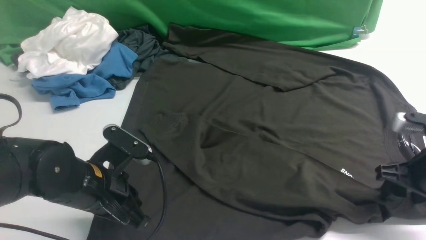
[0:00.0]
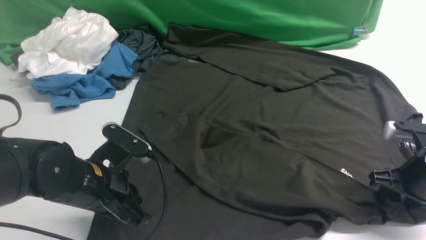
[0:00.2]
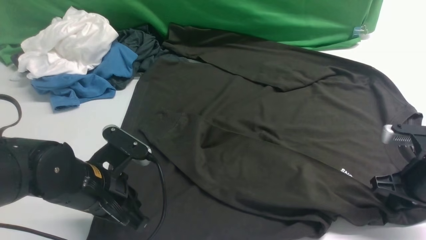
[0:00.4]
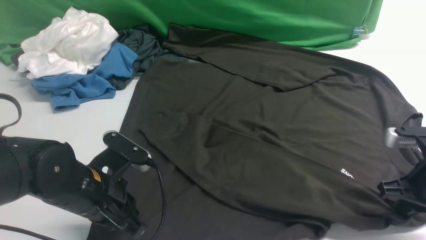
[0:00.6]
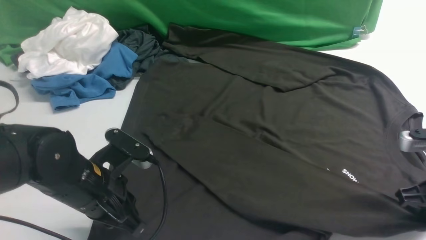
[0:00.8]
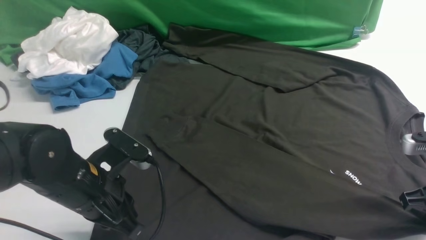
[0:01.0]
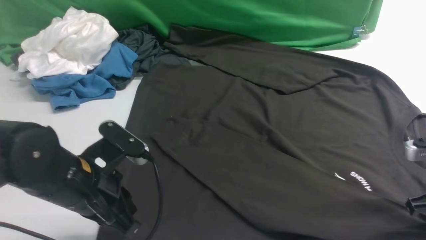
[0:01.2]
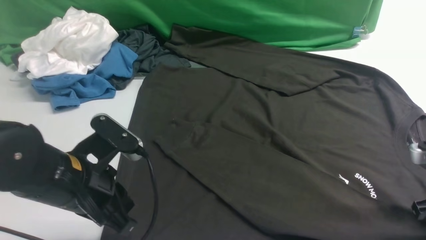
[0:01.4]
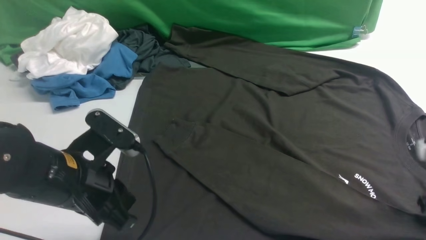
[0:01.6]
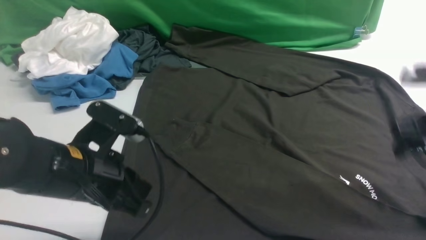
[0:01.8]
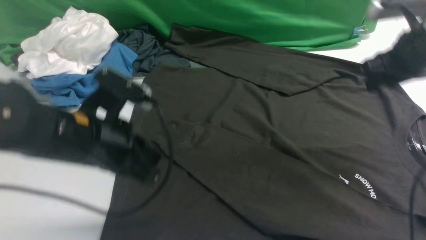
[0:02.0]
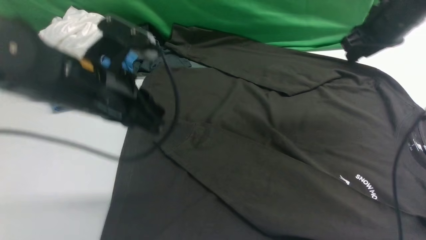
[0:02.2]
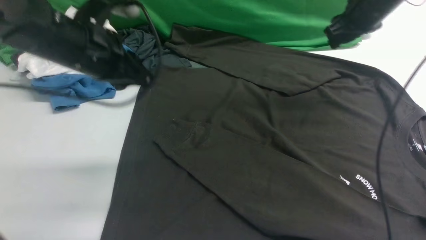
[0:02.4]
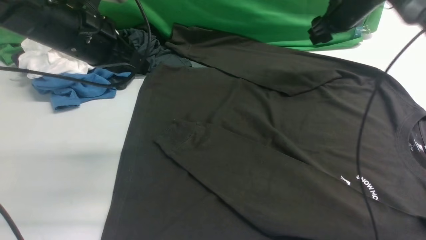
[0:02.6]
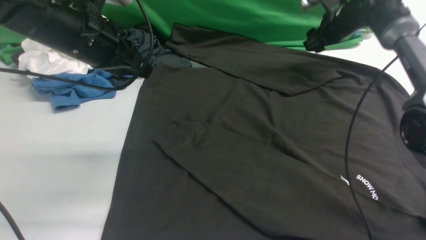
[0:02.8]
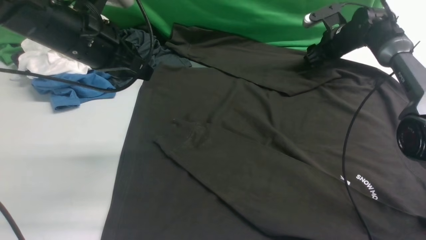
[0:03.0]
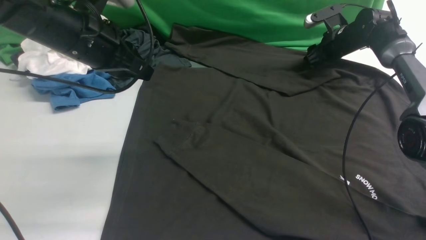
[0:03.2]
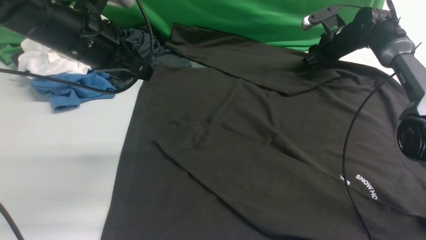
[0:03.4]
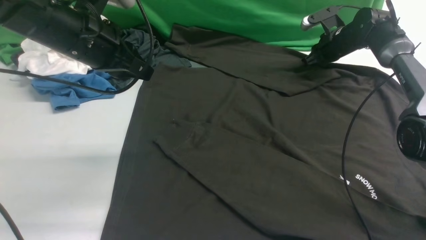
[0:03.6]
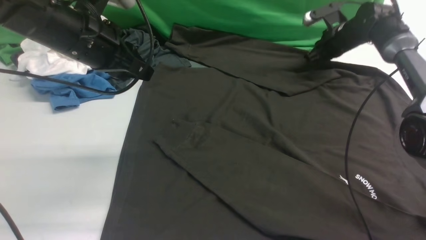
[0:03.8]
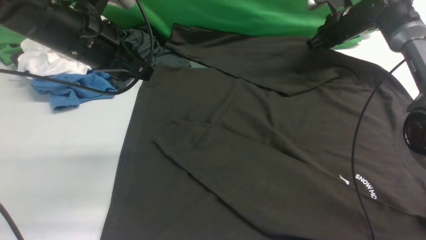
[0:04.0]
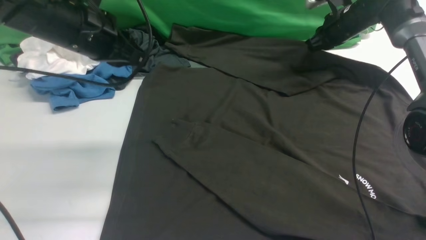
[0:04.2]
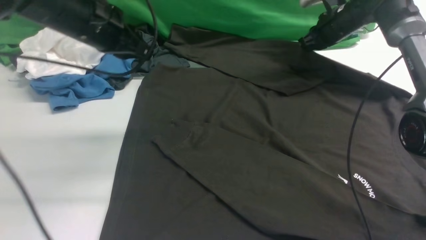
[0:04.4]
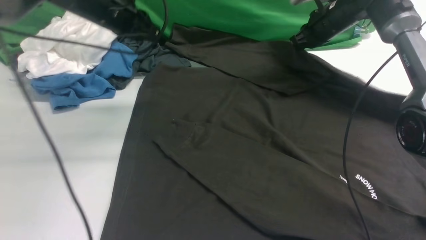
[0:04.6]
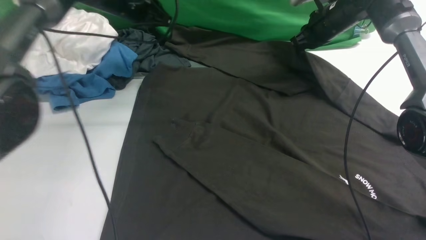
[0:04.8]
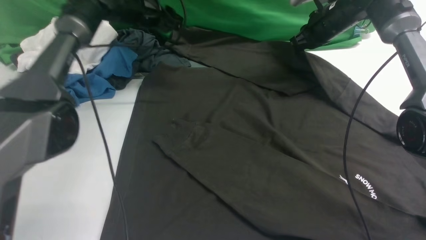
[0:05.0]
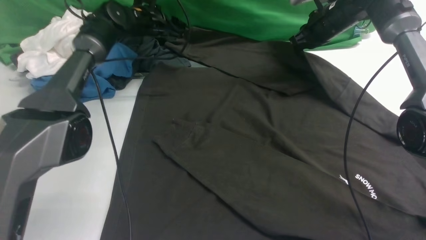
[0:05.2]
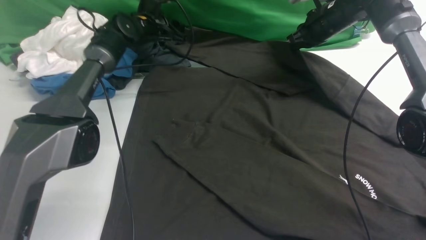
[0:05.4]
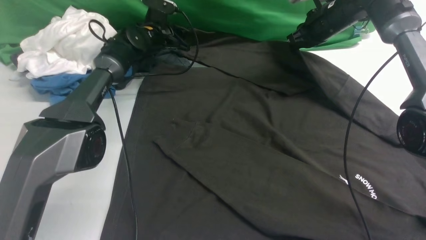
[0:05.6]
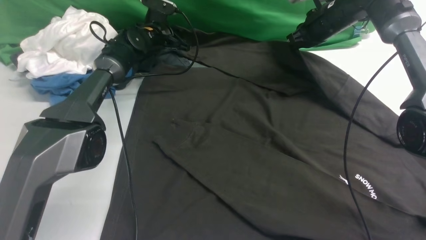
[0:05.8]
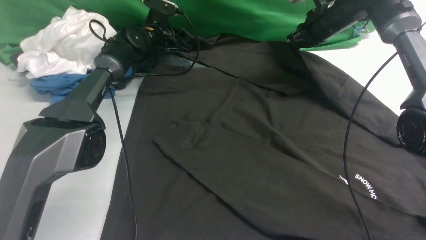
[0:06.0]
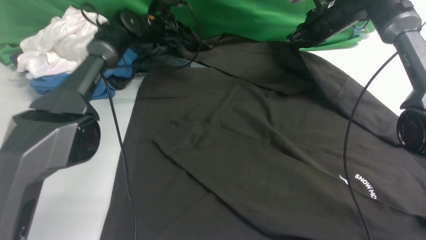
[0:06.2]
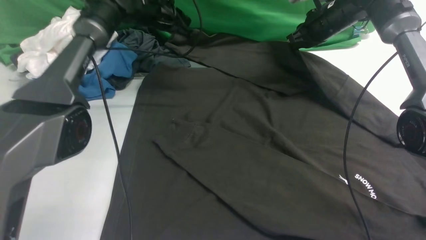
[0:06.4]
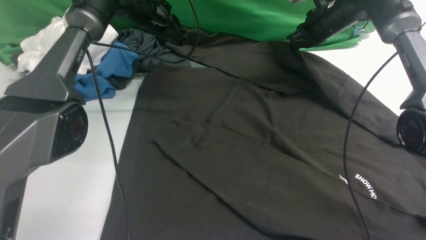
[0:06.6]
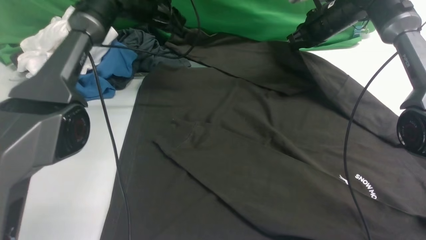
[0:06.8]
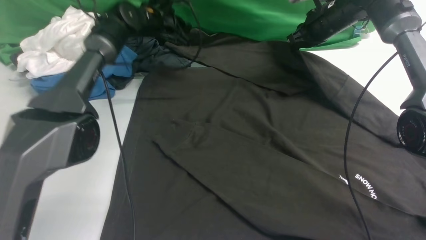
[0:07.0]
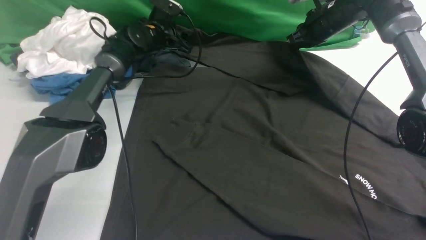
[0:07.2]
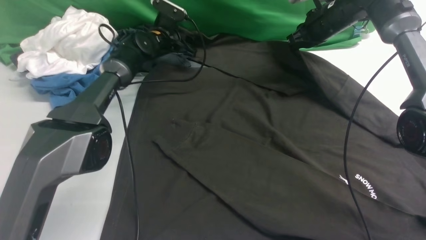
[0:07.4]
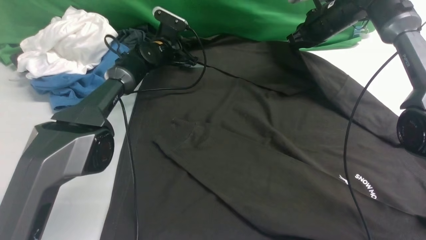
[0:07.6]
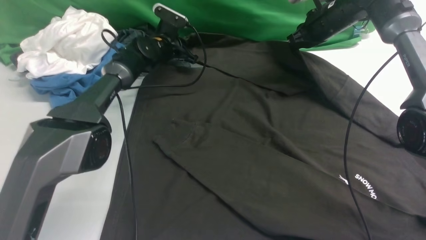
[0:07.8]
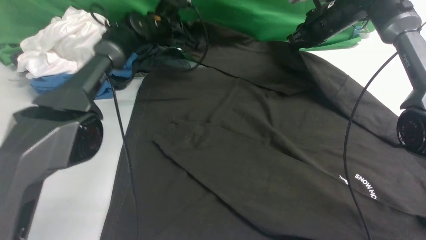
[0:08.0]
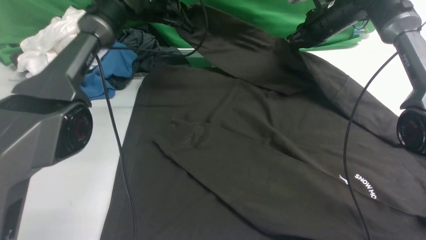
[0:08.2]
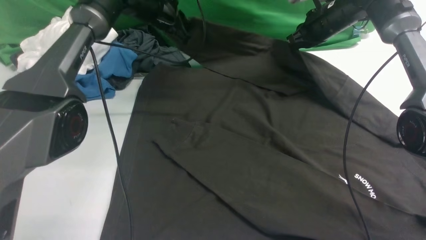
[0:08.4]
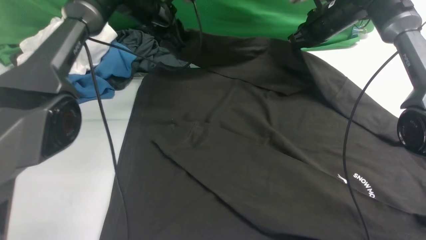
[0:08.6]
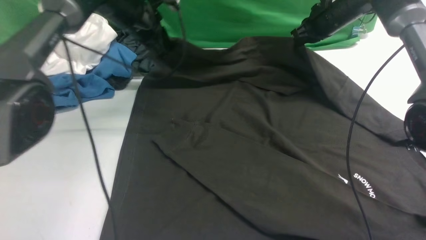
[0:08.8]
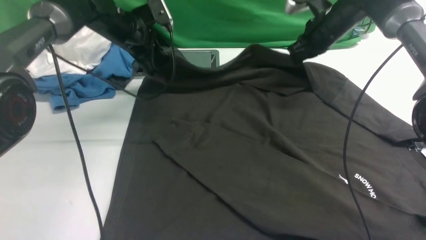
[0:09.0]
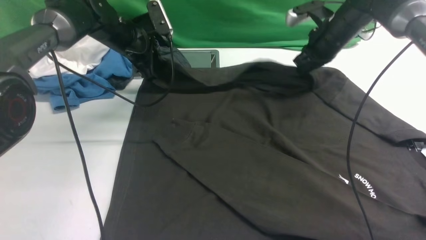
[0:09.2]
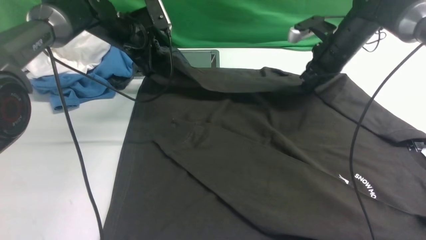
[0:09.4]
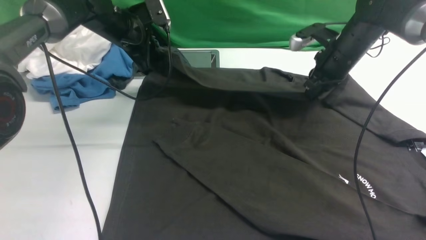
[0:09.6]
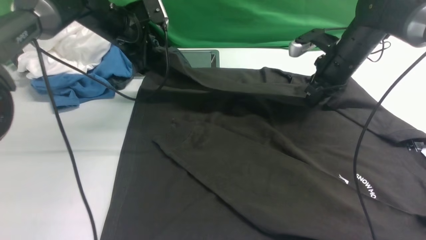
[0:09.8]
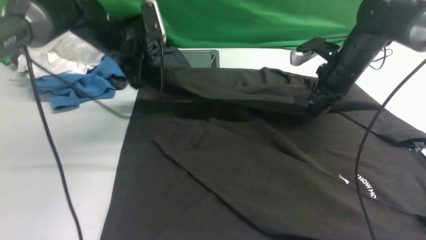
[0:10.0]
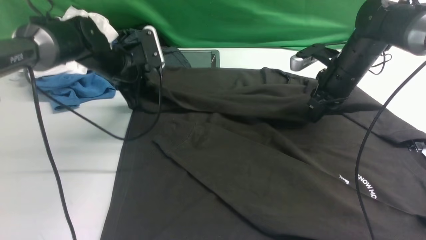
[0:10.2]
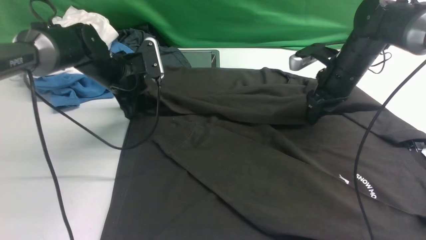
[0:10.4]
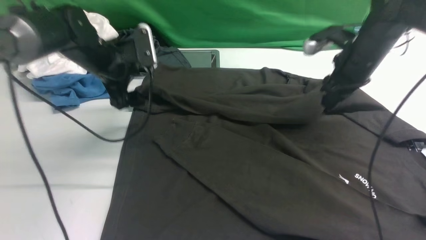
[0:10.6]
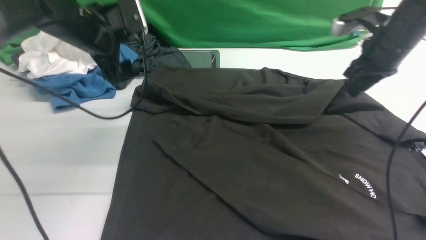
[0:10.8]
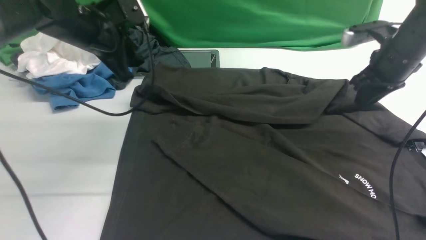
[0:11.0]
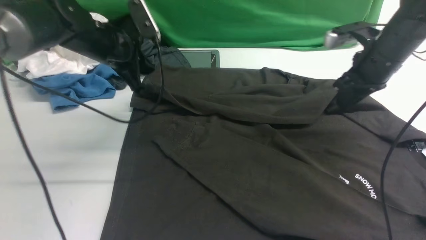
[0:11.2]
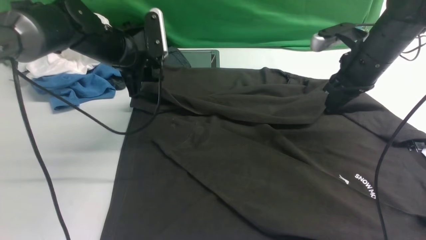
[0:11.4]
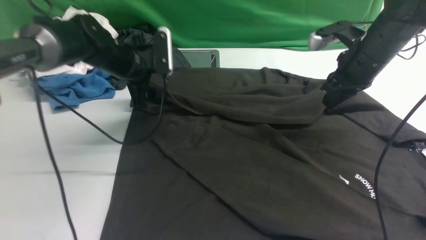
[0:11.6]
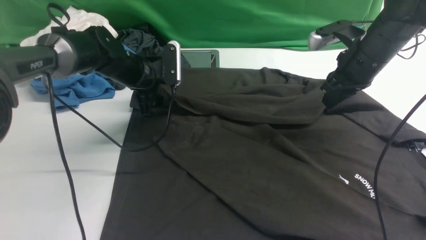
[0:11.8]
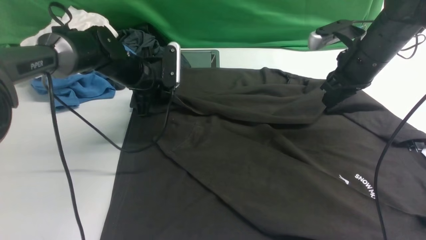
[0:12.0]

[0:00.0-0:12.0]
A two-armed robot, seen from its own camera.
Step, 0:00.0 to 0:07.8: use the left arm to clamp the cuff farthest from it.
0:00.0 to 0:01.6: The left gripper goes about 5 cm upward, while the right gripper closes and opens again.
0:01.6 to 0:03.0: The left gripper is displaced forward and upward by roughly 20 cm. Meanwhile the right gripper travels forward by approximately 35 cm.
0:03.0 to 0:04.4: The left gripper moves forward, some 5 cm; the right gripper goes approximately 5 cm upward, and closes up.
0:04.4 to 0:06.0: The left gripper goes approximately 25 cm forward and downward, and opens, then closes again.
0:06.0 to 0:07.6: The left gripper travels upward and back again, about 5 cm each way, and opens.
0:07.6 to 0:09.0: The left gripper shifts about 15 cm upward and backward, and closes up.
0:09.0 to 0:10.4: The two grippers go about 10 cm backward. The left gripper opens; the right gripper opens.
0:10.4 to 0:12.0: The left gripper moves some 5 cm upward and comes back, and closes its fingers.

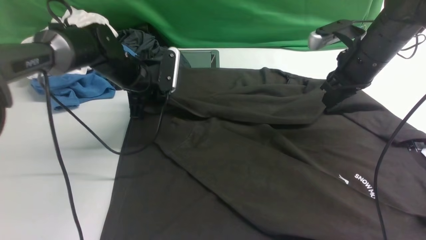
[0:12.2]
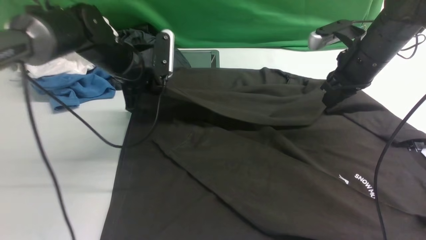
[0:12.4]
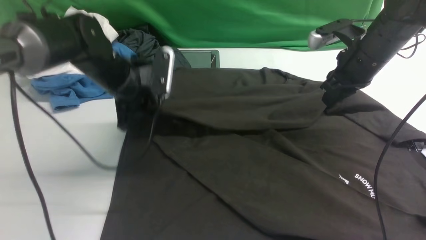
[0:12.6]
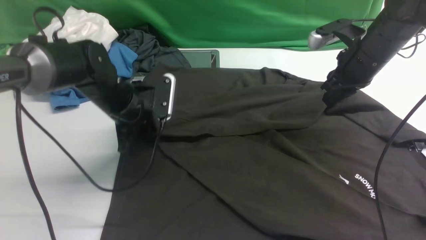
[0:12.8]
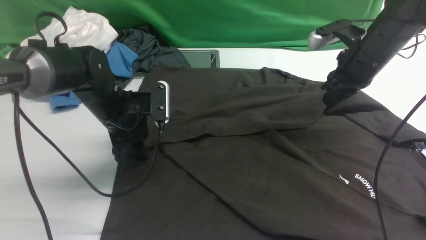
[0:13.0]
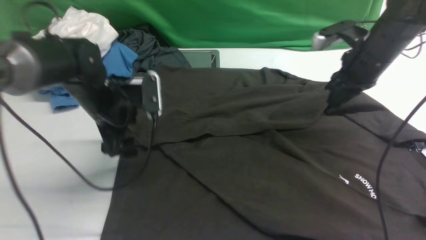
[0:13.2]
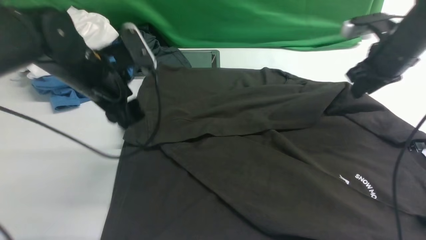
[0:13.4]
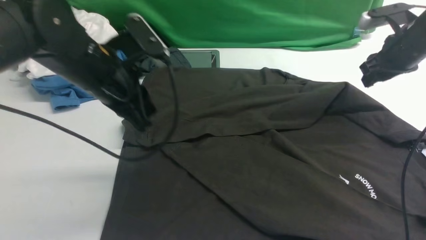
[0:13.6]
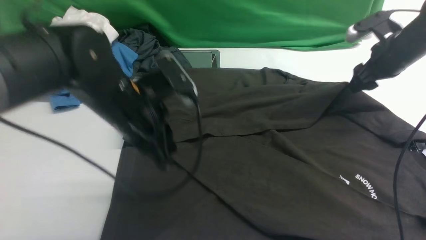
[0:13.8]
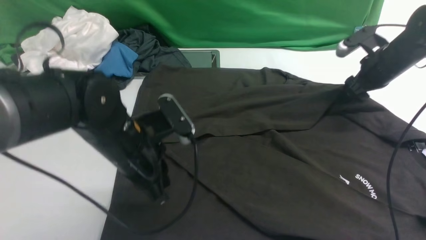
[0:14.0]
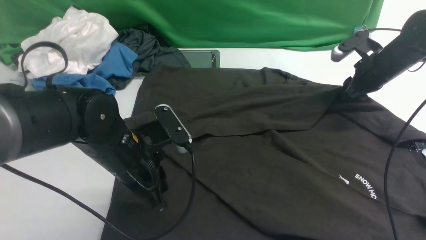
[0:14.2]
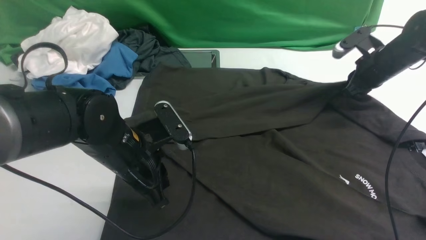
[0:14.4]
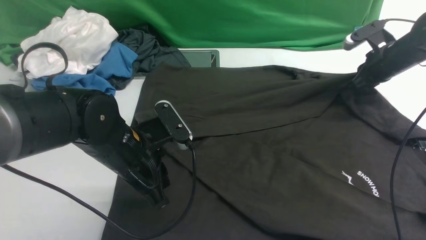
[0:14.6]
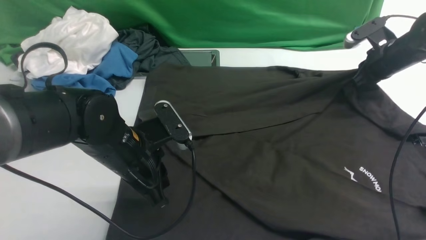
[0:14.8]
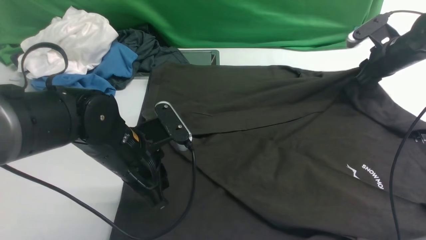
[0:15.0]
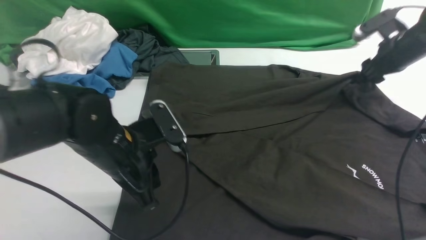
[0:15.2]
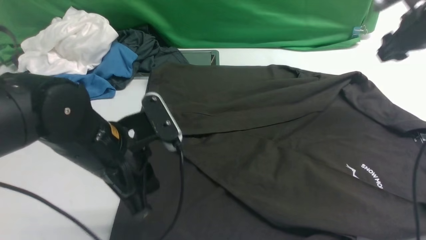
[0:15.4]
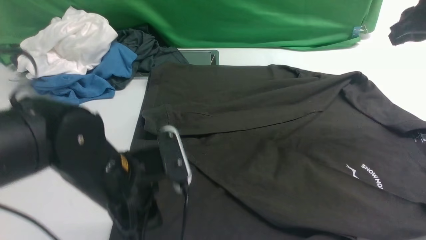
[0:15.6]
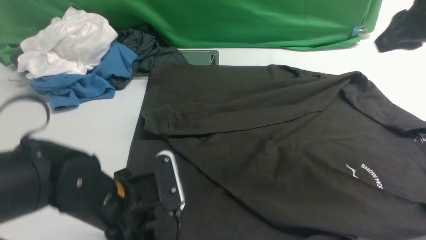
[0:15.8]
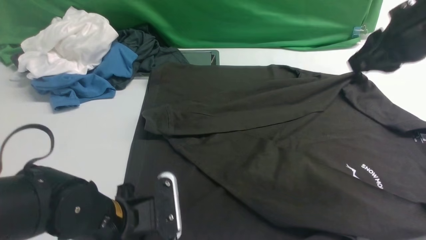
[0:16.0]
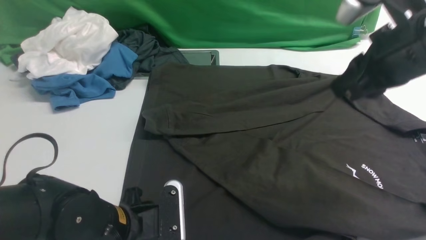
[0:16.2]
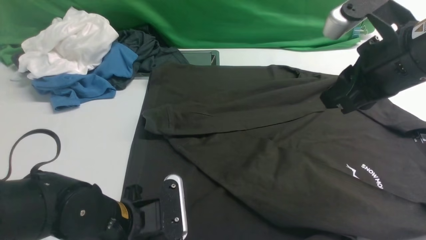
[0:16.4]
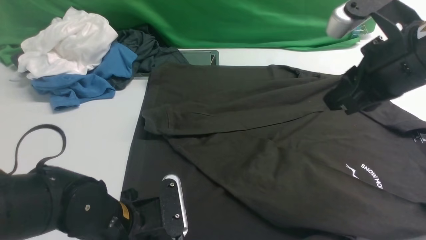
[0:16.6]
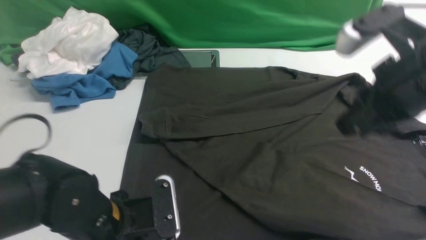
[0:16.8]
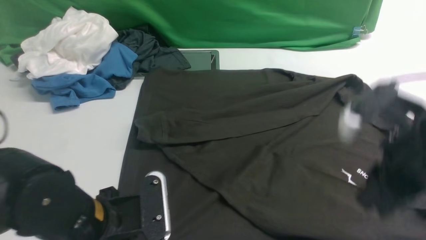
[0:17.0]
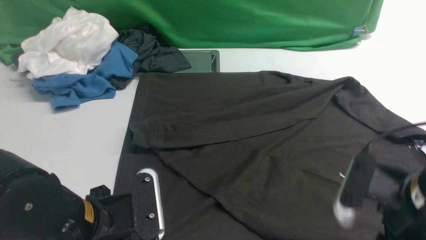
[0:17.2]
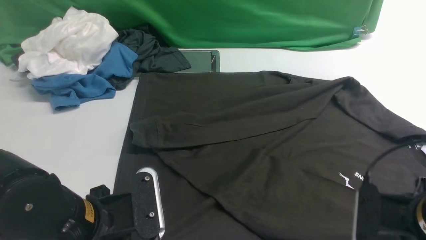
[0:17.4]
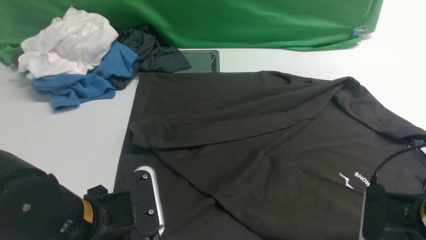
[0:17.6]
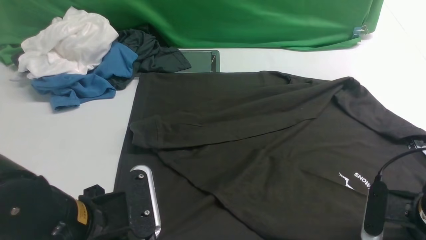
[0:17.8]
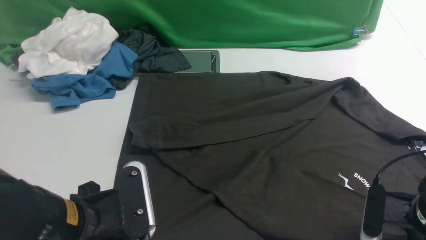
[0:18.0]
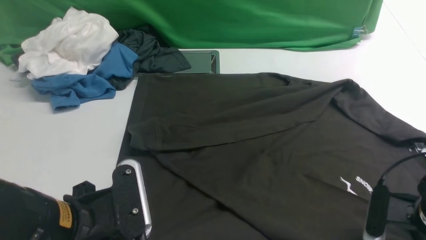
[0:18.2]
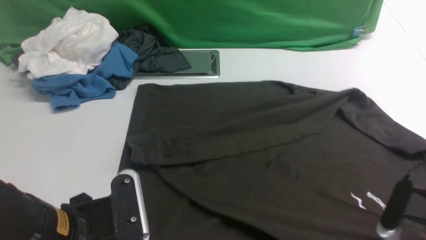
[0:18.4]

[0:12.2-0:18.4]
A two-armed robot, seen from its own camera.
0:12.2 to 0:13.8: The left gripper is displaced backward by about 15 cm, and opens, then closes once more. The right gripper shifts roughly 10 cm to the right, and opens.
0:13.8 to 0:15.4: The left gripper shifts about 5 cm backward; the right gripper moves upward, some 10 cm, and closes and opens again.
0:15.4 to 0:16.8: The right gripper shifts roughly 25 cm backward and to the left; the left gripper is displaced backward by roughly 5 cm, and opens, then closes once more.
0:16.8 to 0:18.4: The right gripper moves downward, to the right and backward, about 15 cm, and opens and closes again, while the left gripper is displaced upward by about 5 cm.
